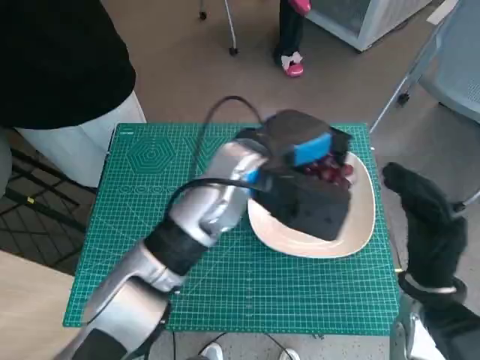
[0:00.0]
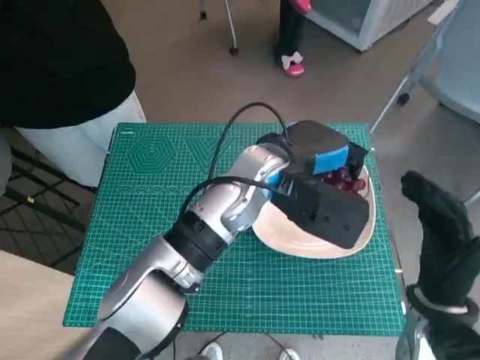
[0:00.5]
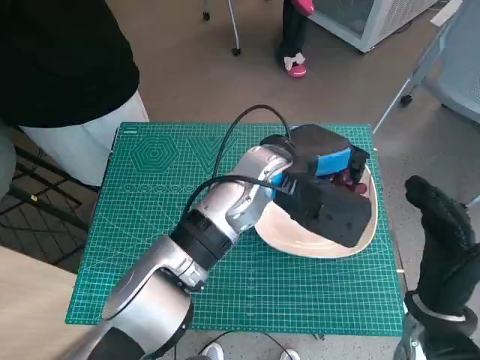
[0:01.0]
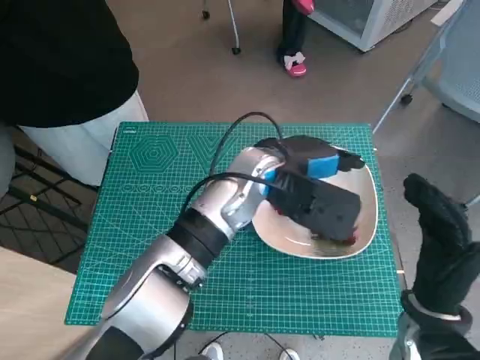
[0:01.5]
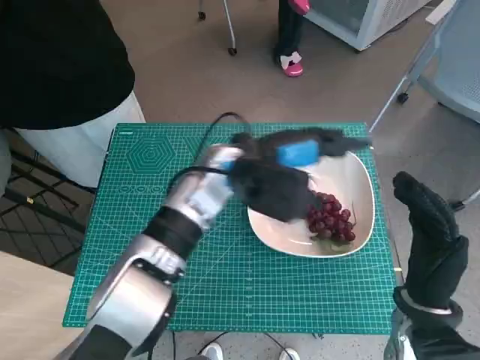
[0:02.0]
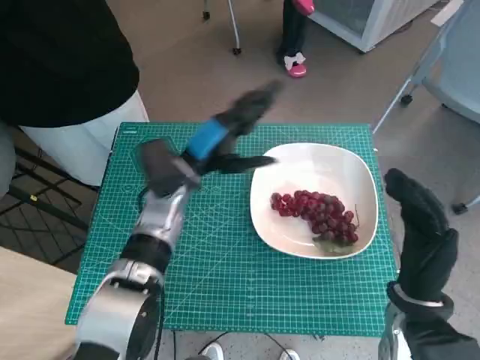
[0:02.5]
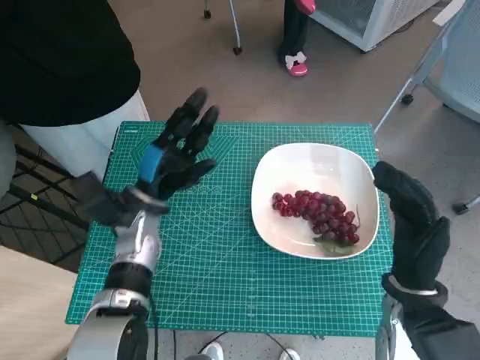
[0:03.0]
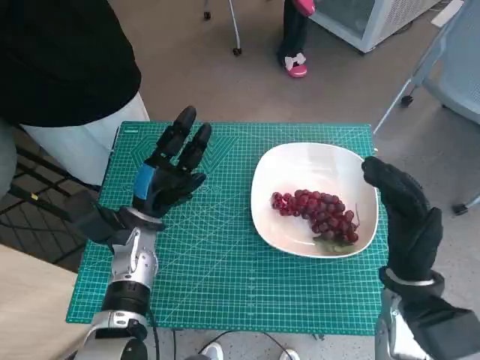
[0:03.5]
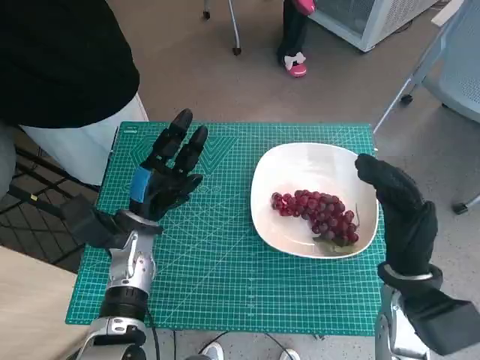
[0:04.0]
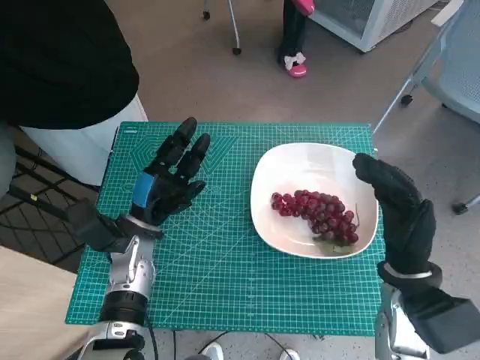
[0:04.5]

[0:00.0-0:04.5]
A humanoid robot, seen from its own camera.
Task of the whole recording: Pick up the grapes and put them on the plate.
0:02.0 to 0:04.5: The left hand travels to the left and downward by about 20 cm.
